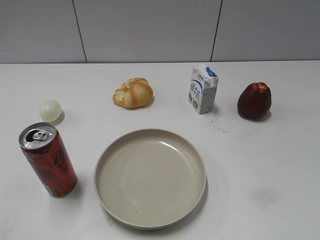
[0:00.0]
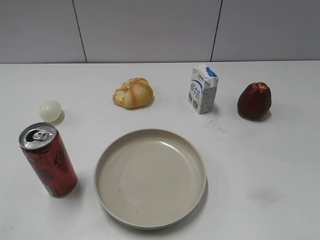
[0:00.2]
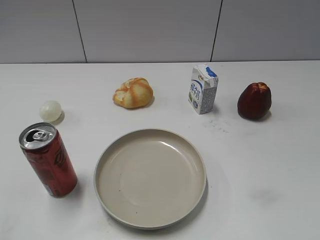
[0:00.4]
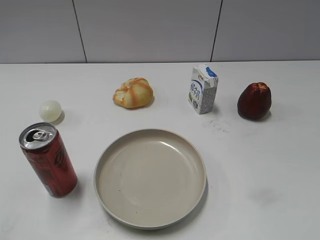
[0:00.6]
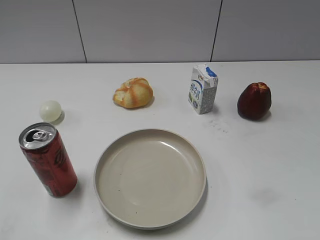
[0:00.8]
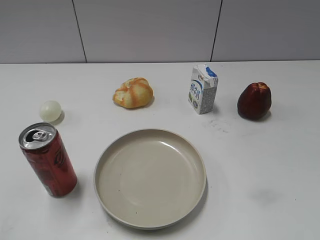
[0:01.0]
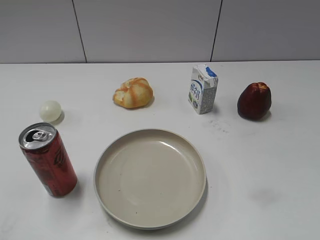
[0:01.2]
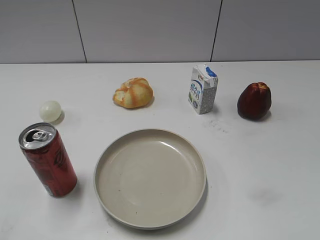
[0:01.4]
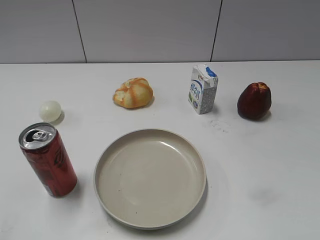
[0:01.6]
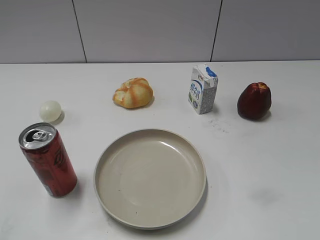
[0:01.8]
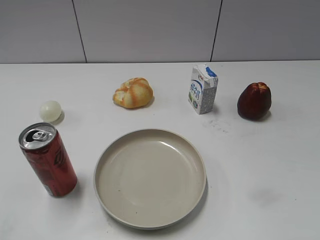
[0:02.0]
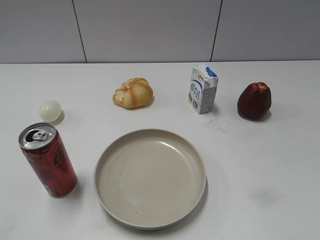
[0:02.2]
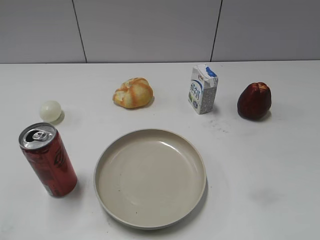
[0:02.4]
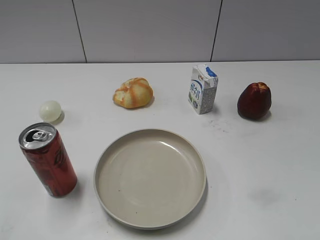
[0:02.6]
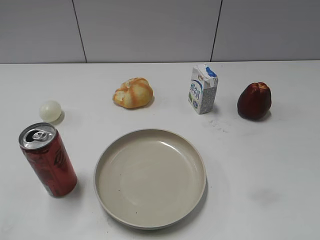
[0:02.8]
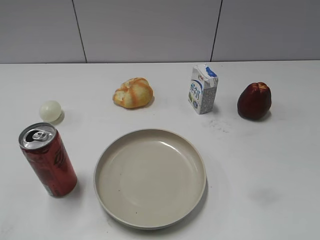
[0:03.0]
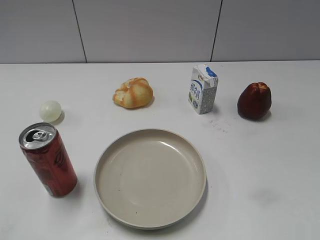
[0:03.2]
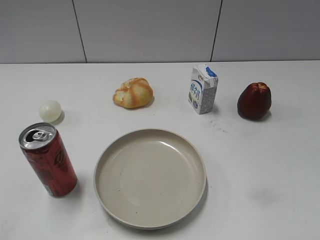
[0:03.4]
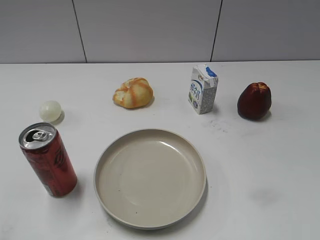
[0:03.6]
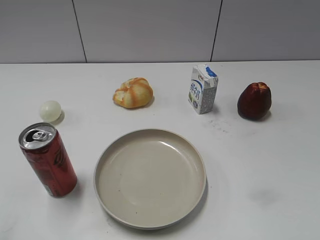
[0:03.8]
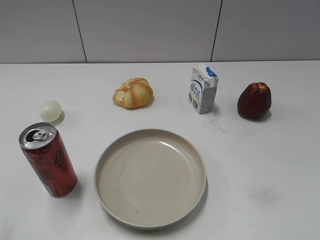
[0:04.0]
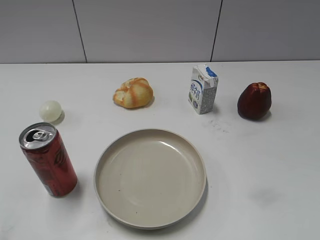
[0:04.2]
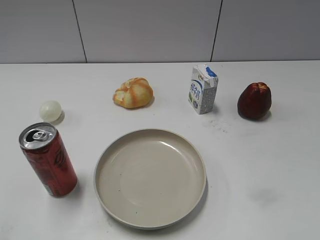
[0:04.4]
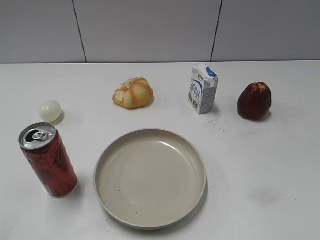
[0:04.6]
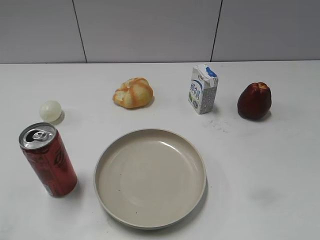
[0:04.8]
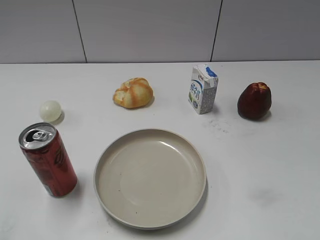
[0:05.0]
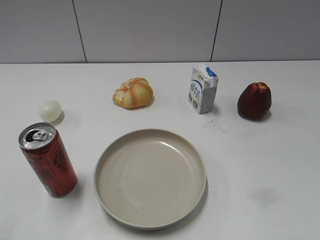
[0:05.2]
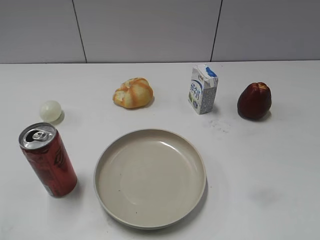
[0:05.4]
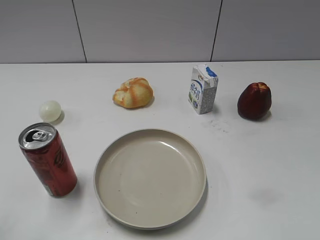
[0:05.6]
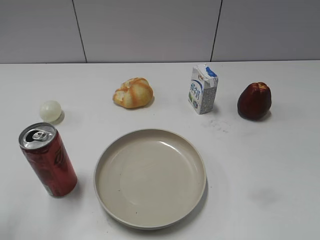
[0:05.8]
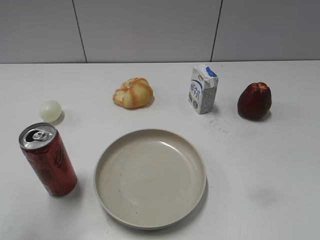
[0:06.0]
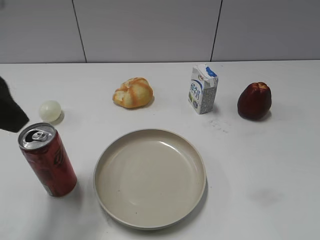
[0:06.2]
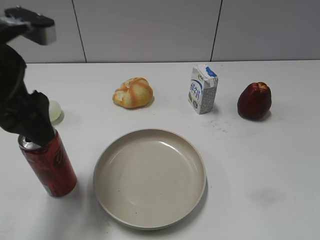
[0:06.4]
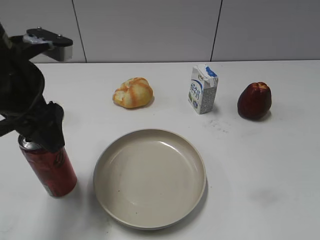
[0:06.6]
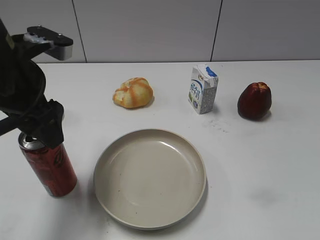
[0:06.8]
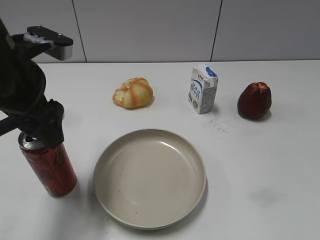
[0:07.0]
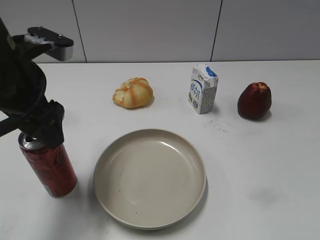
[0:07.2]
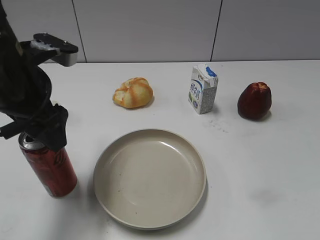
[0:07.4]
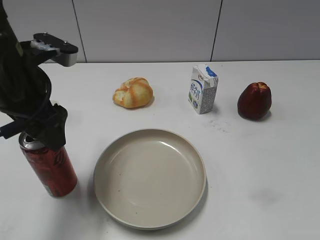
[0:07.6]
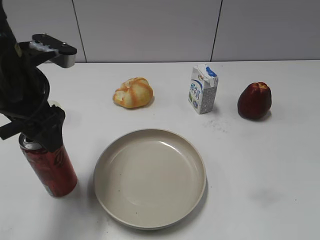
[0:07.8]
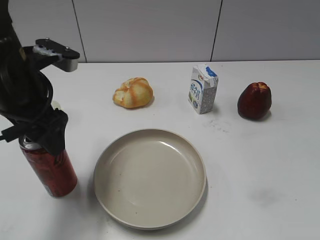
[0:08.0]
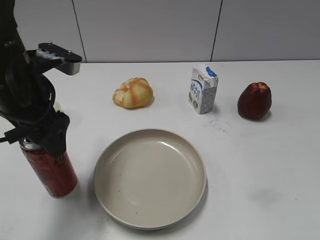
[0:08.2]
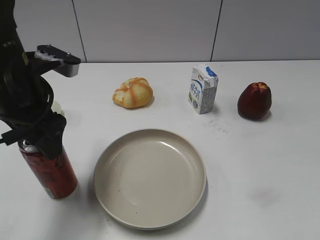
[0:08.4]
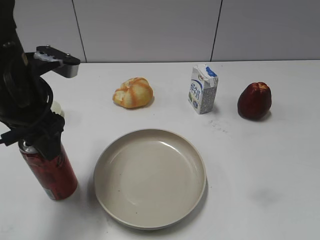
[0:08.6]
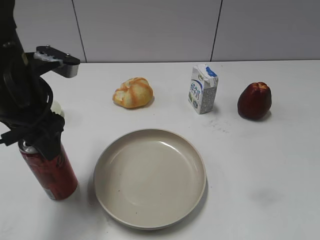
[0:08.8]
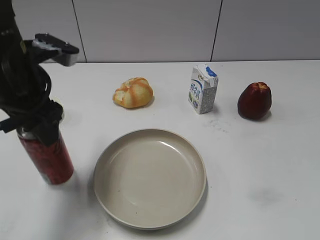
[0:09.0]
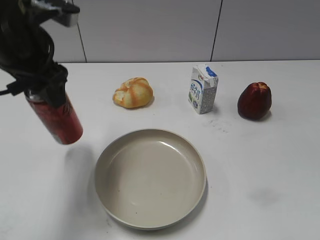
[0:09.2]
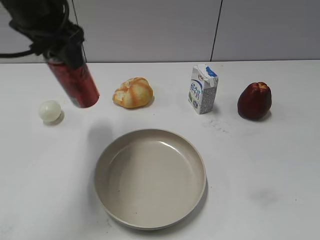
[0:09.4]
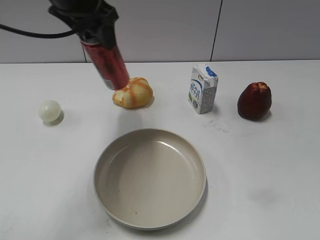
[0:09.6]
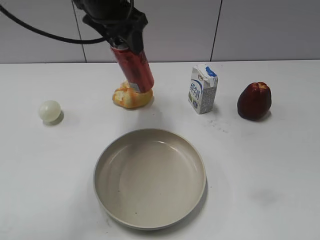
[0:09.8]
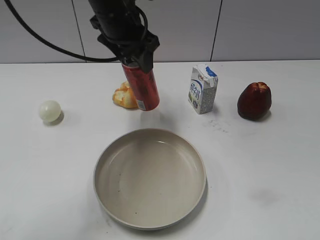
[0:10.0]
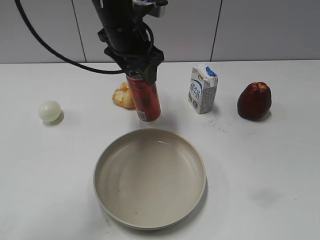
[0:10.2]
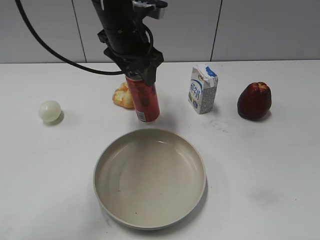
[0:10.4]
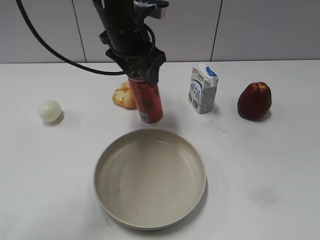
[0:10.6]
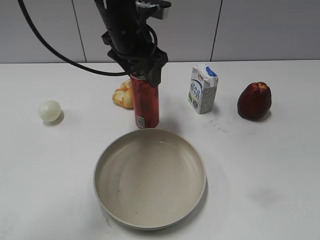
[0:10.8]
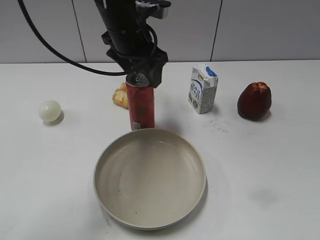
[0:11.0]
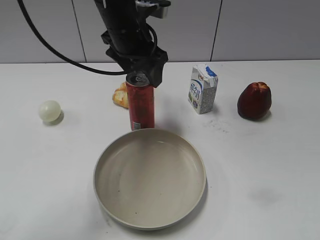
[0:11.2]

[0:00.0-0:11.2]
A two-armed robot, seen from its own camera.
Step, 0:03.0 to 0:09.0: Grasp the cola with left gripper.
0:01.6 to 0:03.2: The two grippers keep their place.
0:04.8 to 0:06.4: The left gripper goes approximately 20 cm forward and to the right, and opens.
0:06.4 to 0:08.0: The left gripper heads downward, covering some 5 cm.
0:08.0 to 0:09.6: The left gripper heads forward, upward and to the right, covering roughly 15 cm, and closes up.
0:09.6 to 0:11.2: The left gripper heads downward and to the right, covering some 10 cm, and opens up.

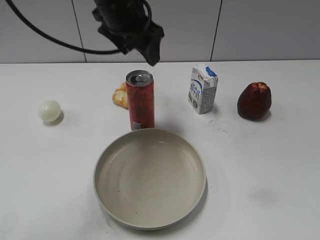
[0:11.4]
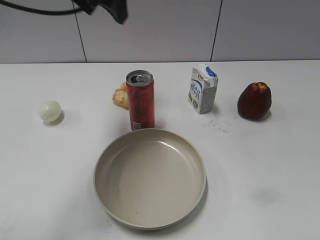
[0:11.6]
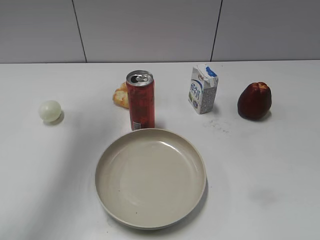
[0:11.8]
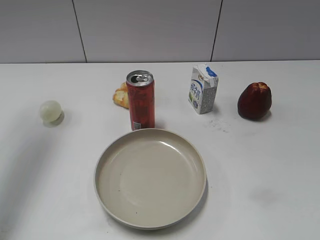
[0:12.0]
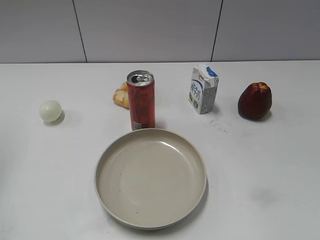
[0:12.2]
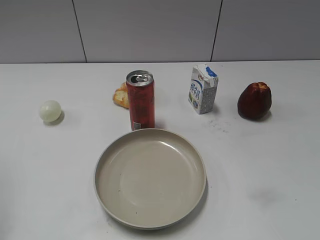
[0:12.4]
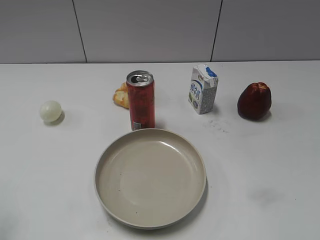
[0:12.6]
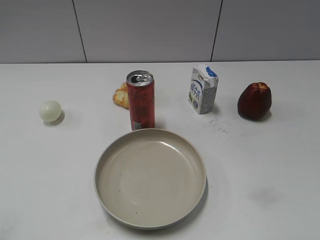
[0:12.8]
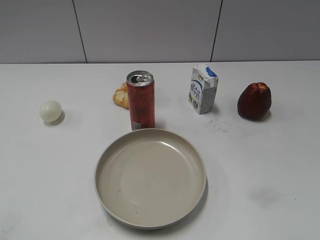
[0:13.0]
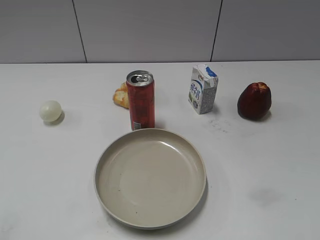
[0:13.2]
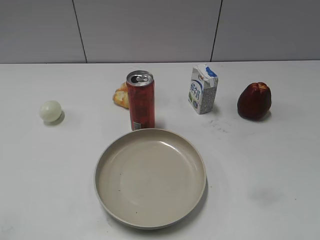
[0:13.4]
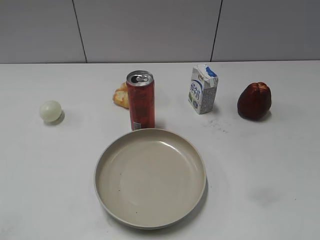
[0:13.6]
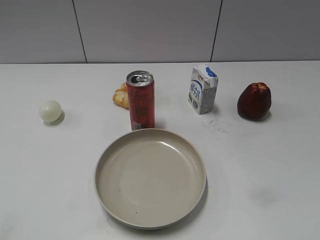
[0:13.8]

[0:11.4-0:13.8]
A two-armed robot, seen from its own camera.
0:11.4 to 0:12.6: The left gripper heads to the left and backward, covering roughly 35 cm.
